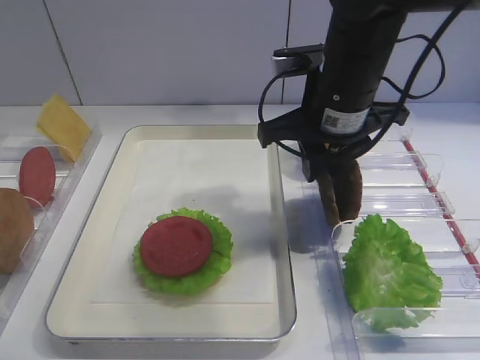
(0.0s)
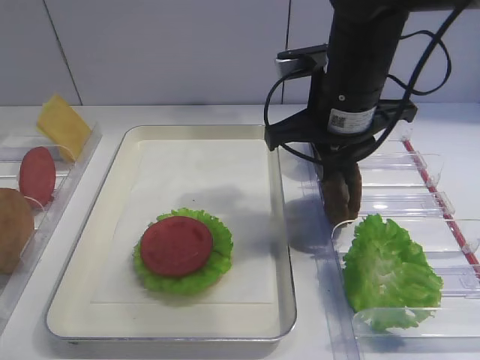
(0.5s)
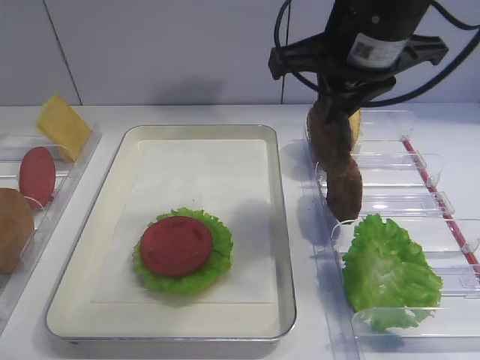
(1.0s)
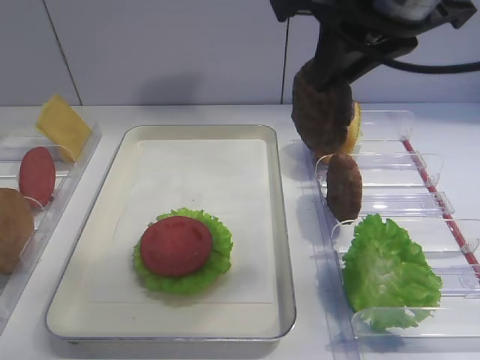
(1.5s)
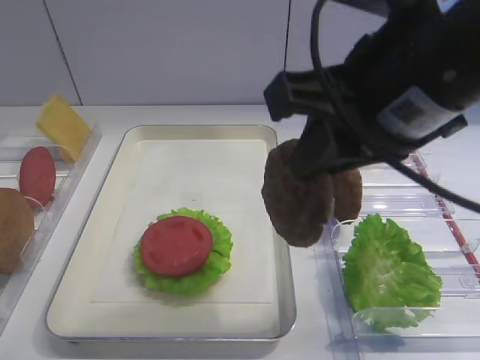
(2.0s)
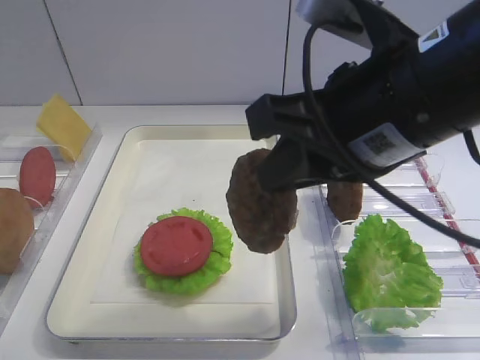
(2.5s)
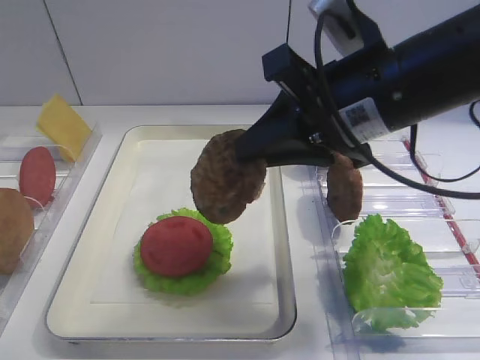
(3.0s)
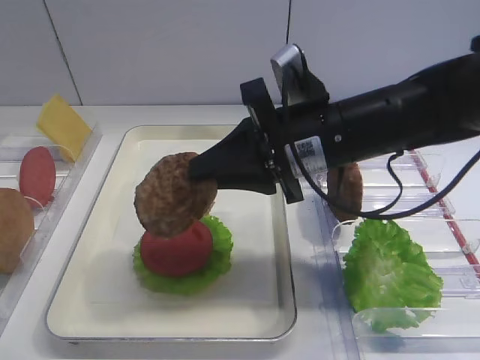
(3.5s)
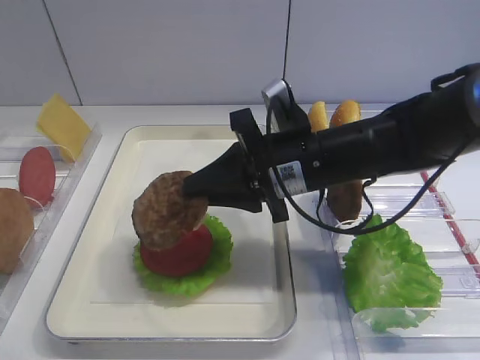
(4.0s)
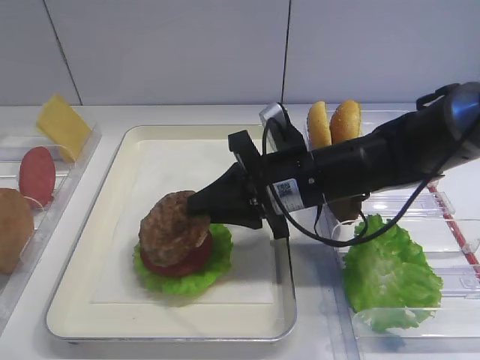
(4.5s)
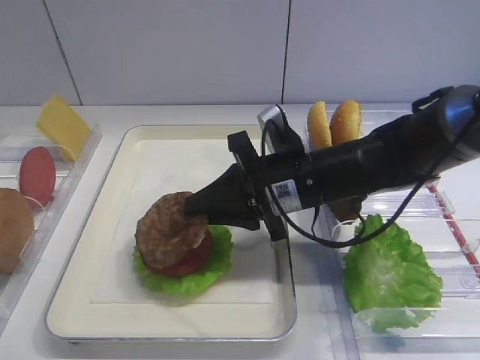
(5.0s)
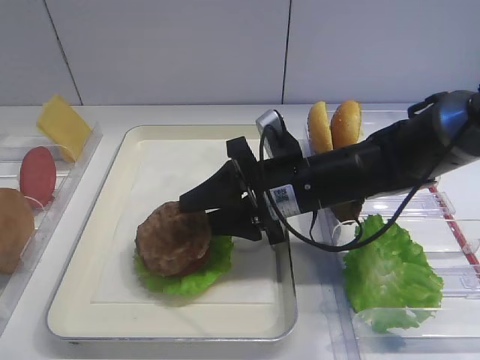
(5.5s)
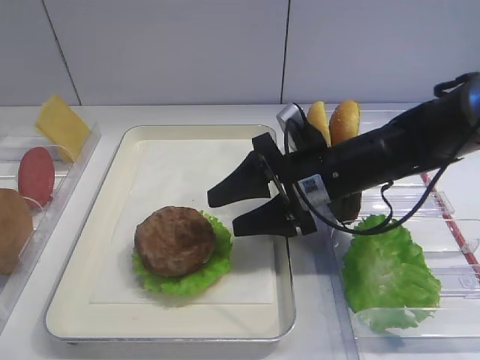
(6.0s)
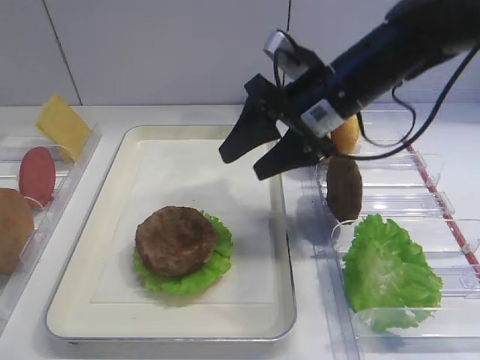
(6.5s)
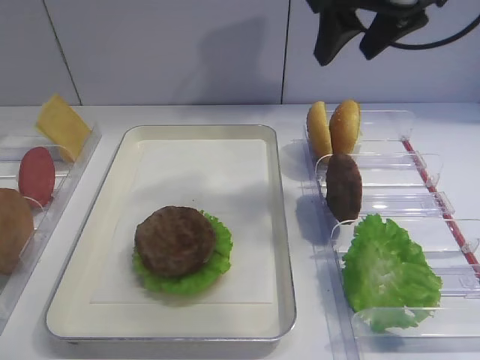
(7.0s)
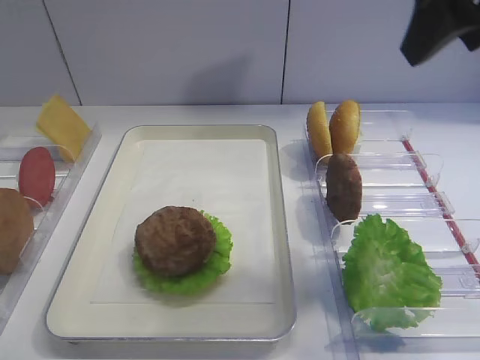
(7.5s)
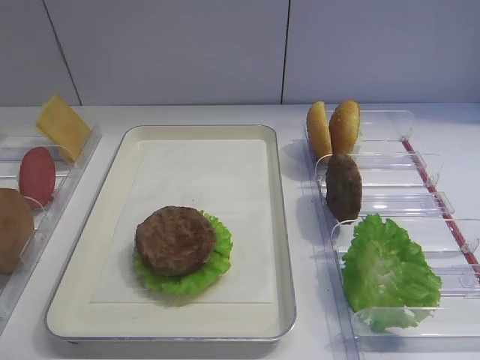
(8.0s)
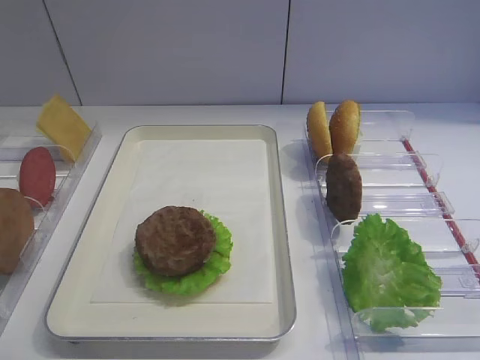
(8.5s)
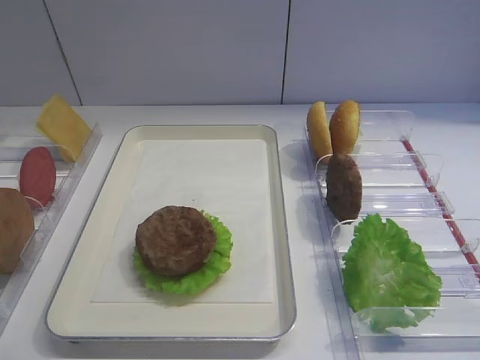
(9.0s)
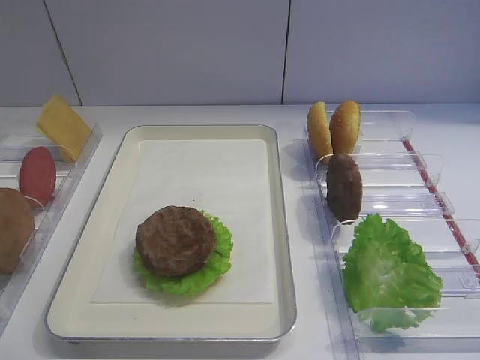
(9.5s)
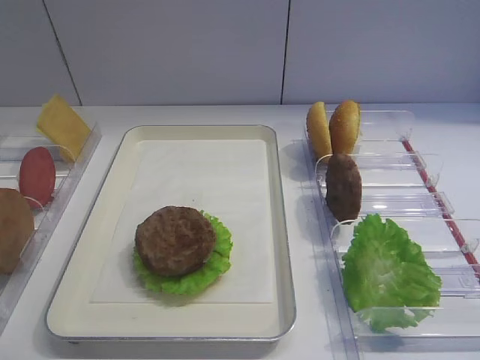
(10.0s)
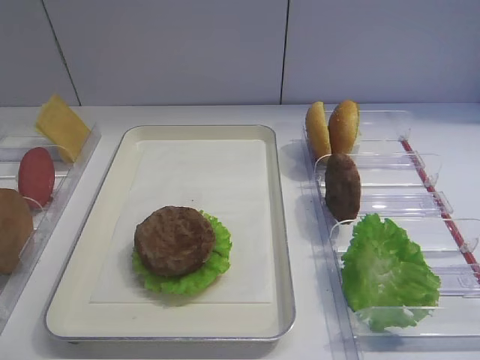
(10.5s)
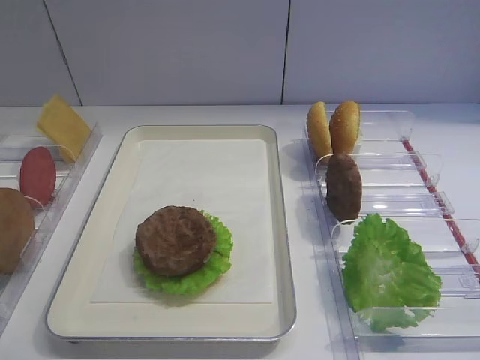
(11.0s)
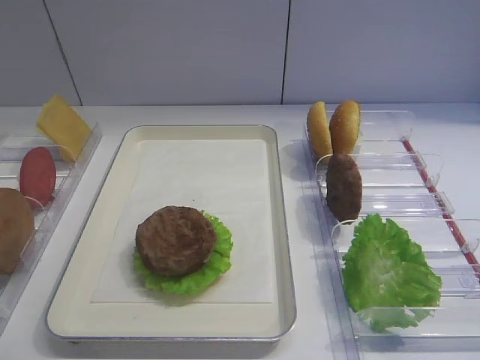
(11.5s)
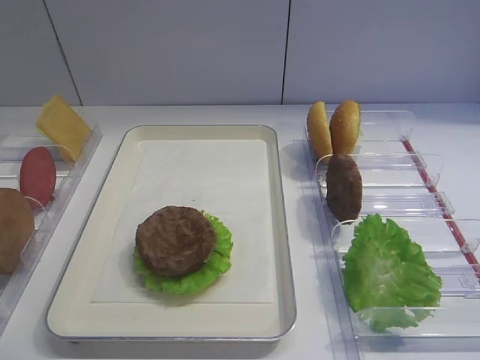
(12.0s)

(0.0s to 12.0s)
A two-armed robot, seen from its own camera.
Step, 1.0s - 6.0s: Place the cutlet on the tomato slice with the right gripper.
0.0s - 2.0s: The right gripper moves backward and upward, approximately 15 cm.
2.0s - 4.0s: The right gripper moves downward and forward, about 20 cm.
4.0s - 6.0s: The right gripper opens.
6.0s - 8.0s: The right gripper is displaced backward, upward and to the right by about 35 cm.

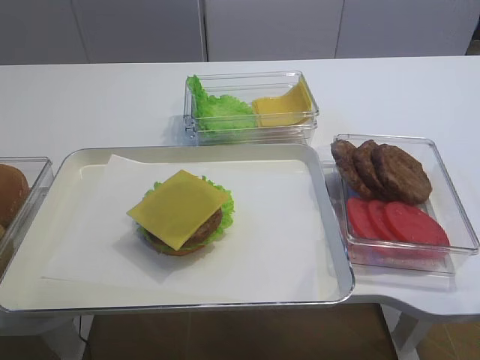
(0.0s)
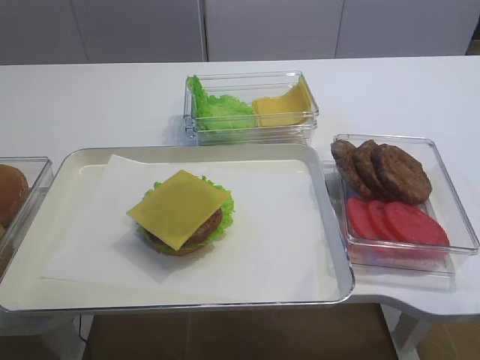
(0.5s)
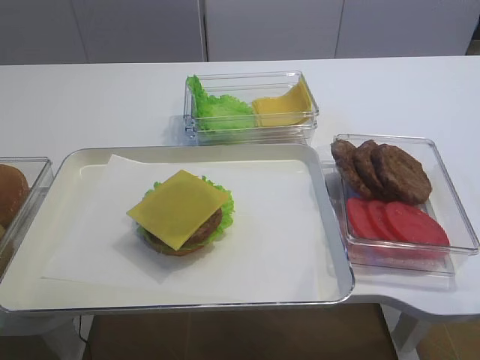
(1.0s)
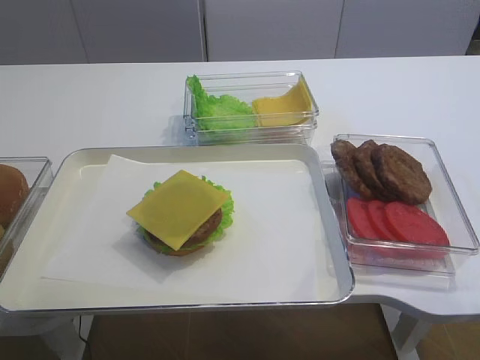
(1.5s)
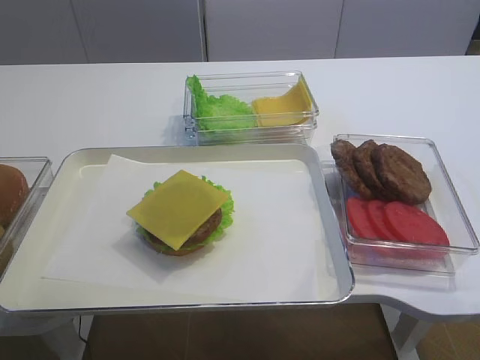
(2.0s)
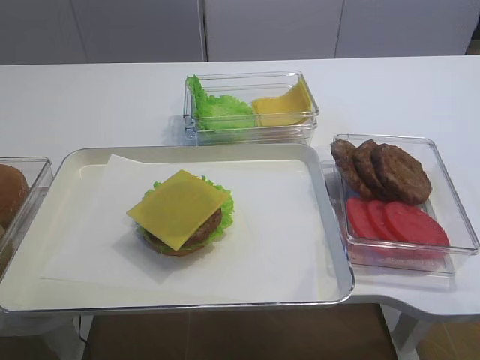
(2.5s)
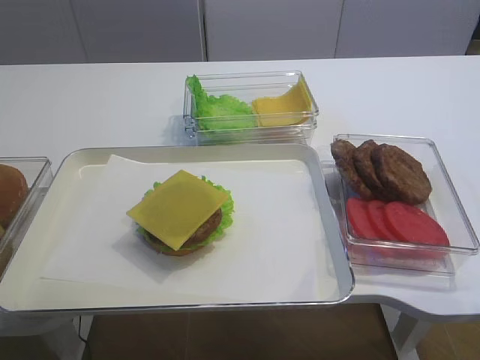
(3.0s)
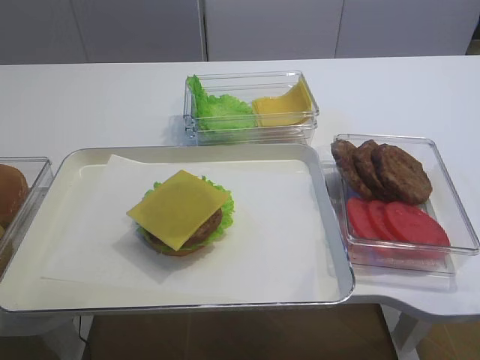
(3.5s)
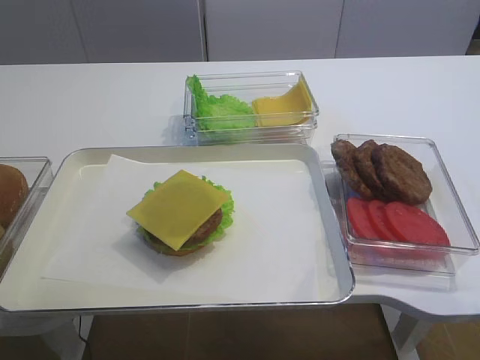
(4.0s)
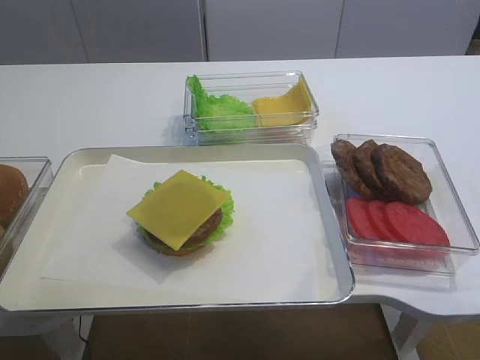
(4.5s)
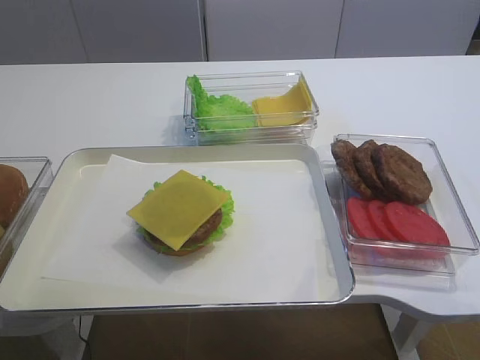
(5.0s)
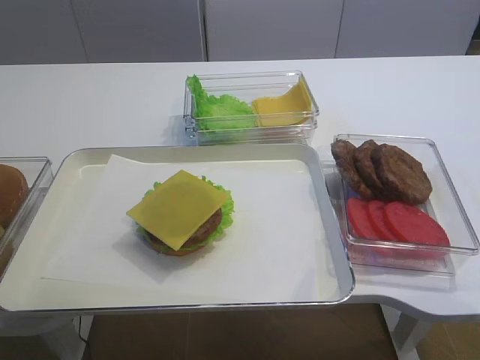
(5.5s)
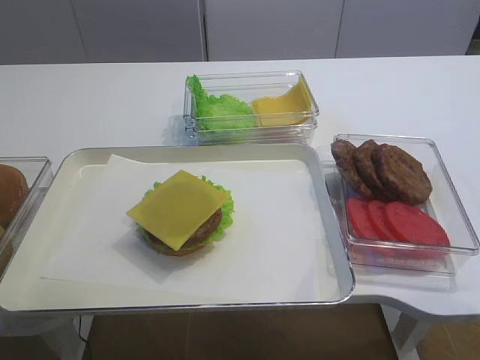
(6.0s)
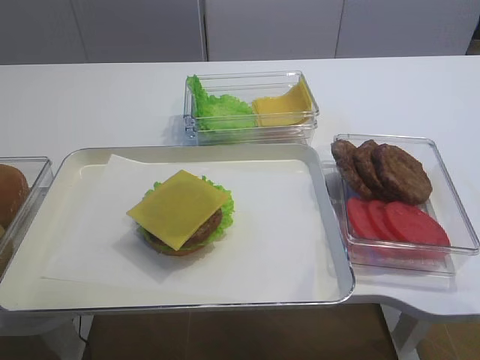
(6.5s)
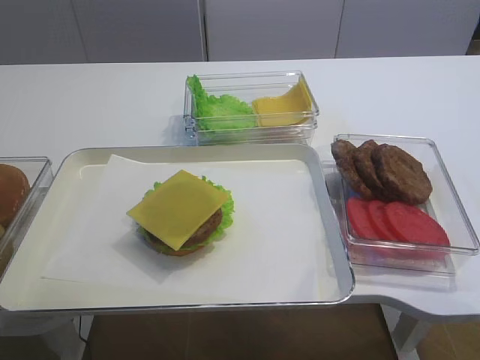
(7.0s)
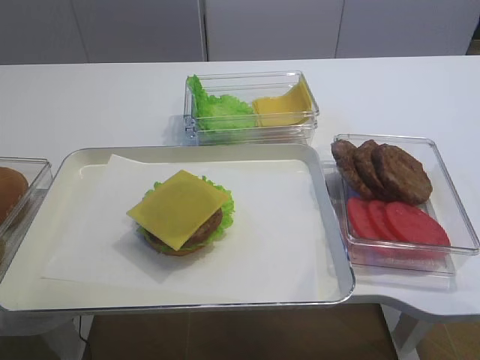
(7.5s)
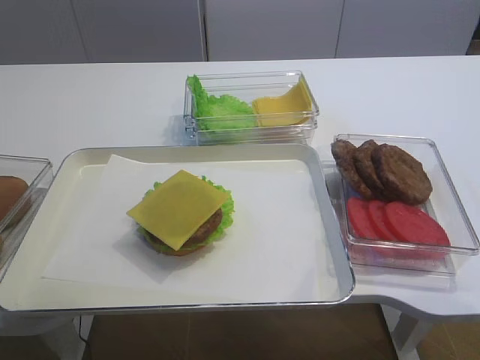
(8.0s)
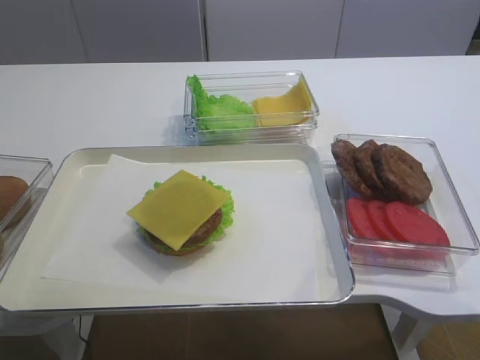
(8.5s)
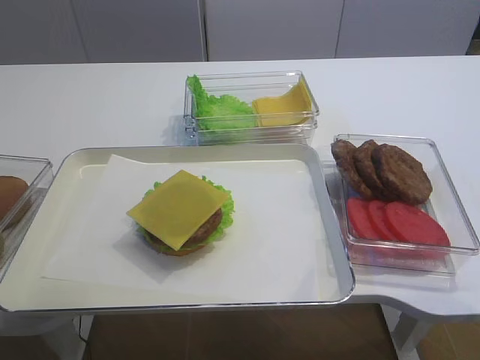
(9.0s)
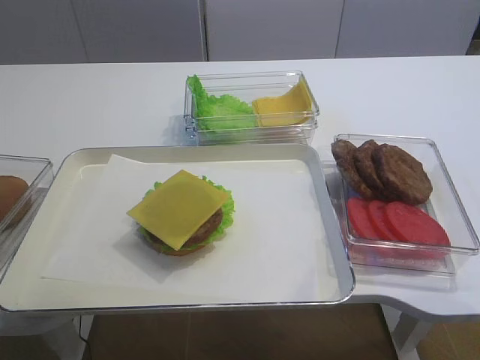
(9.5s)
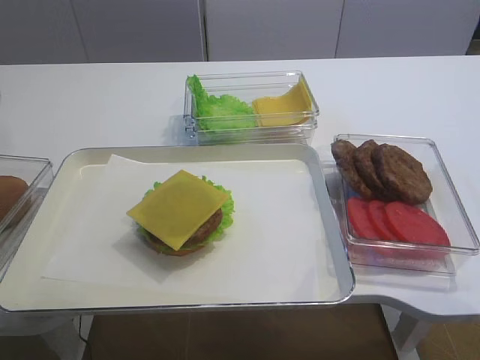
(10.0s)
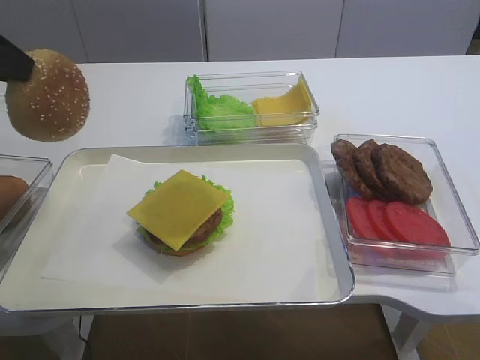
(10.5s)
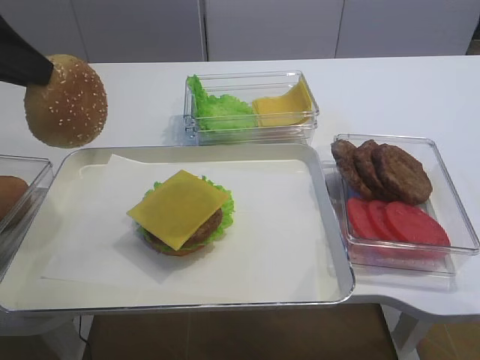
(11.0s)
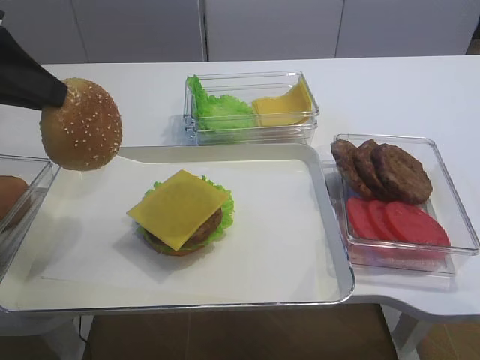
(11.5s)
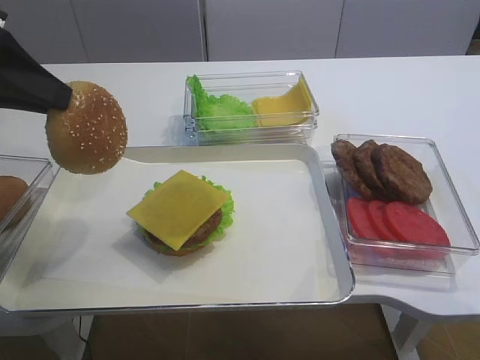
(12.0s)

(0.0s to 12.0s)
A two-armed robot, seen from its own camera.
10.0s - 12.0s: The left gripper is displaced to the right by some 10 cm.

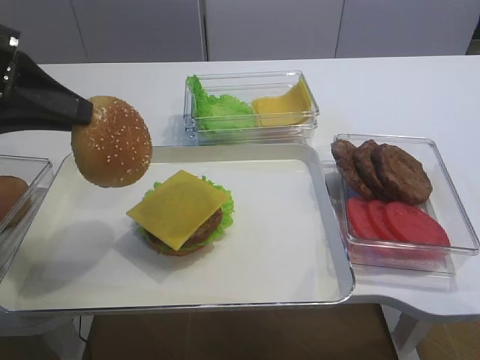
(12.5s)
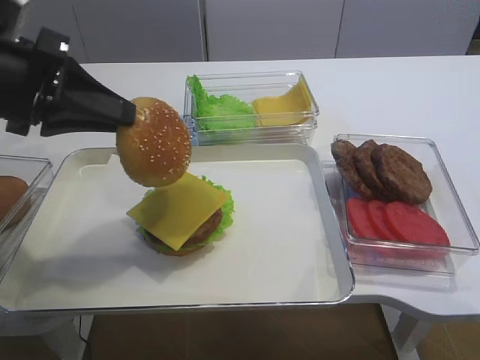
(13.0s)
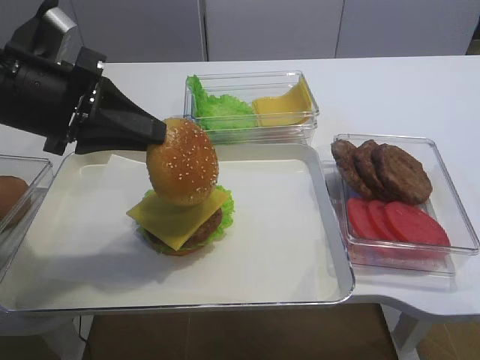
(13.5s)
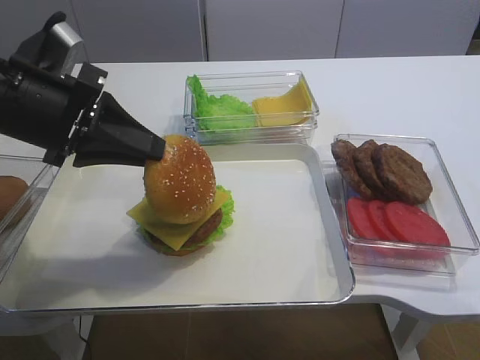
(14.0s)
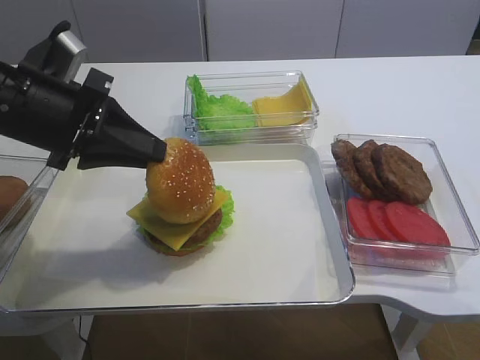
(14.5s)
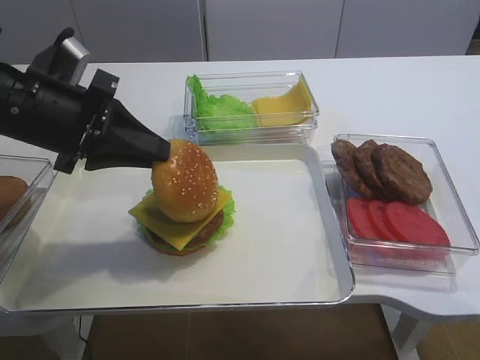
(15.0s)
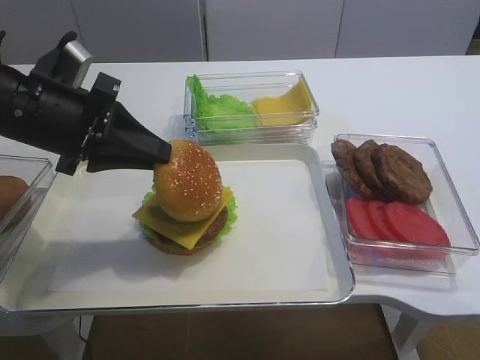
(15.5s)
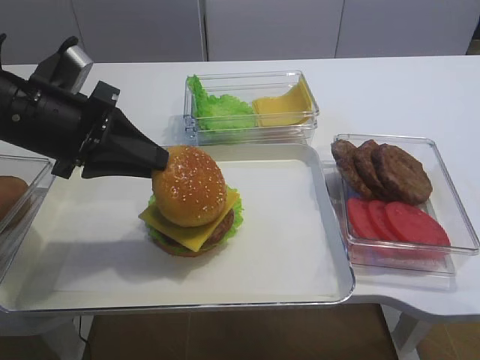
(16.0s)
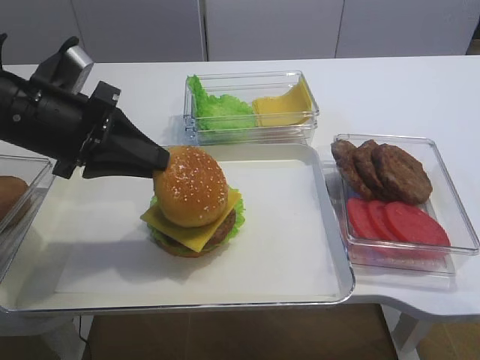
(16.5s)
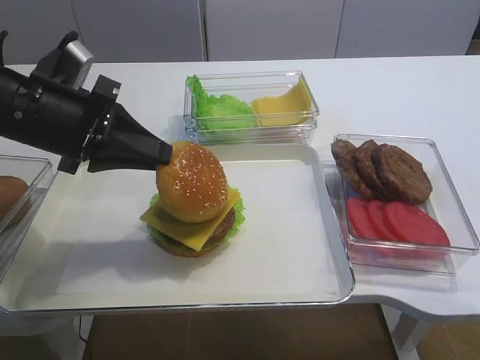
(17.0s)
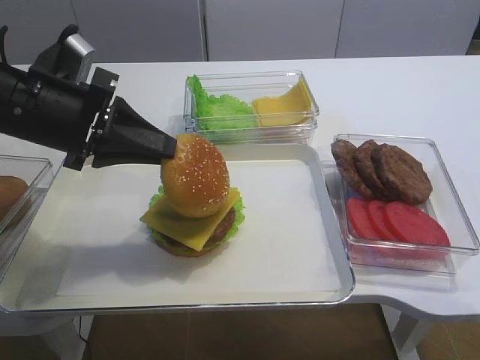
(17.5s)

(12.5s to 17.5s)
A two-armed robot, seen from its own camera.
12.5s - 15.0s: The left gripper travels to the right and downward by some 10 cm.
15.0s - 17.5s: The two grippers keep their place.
